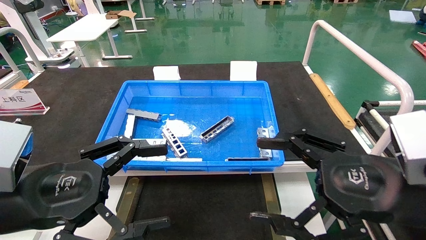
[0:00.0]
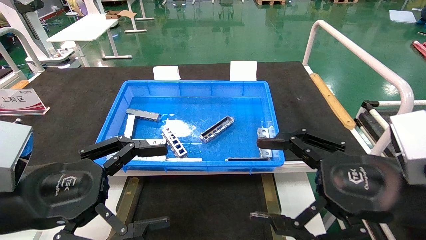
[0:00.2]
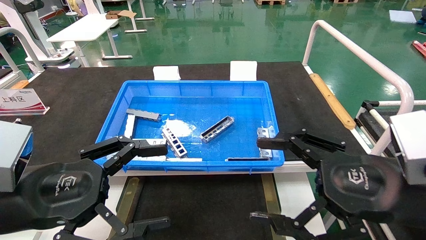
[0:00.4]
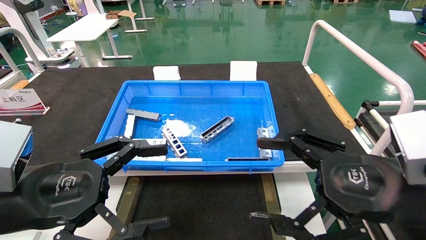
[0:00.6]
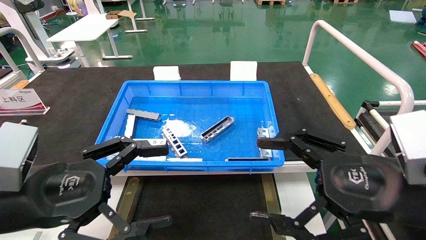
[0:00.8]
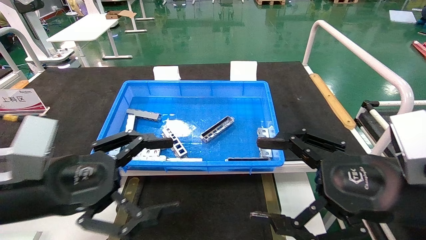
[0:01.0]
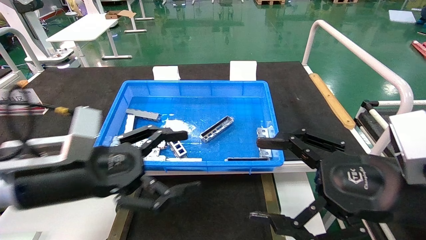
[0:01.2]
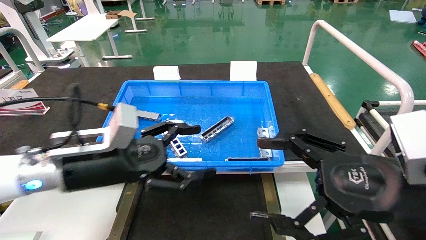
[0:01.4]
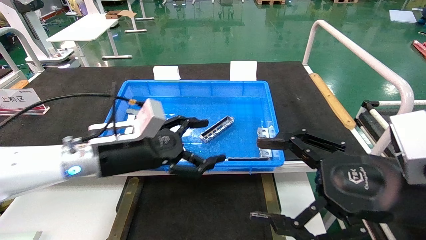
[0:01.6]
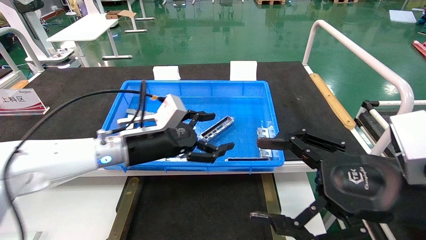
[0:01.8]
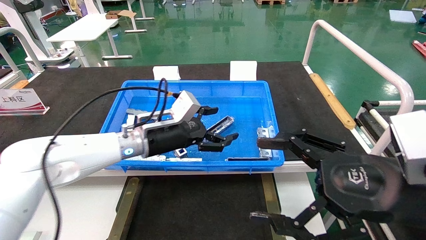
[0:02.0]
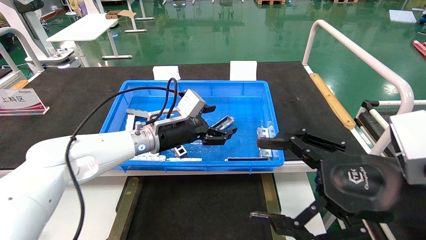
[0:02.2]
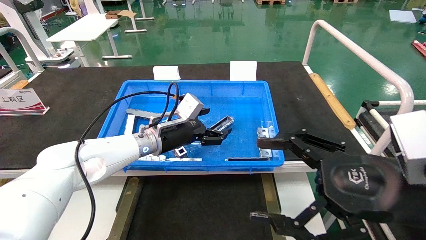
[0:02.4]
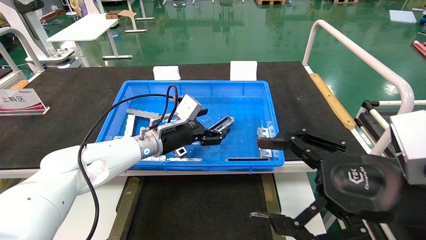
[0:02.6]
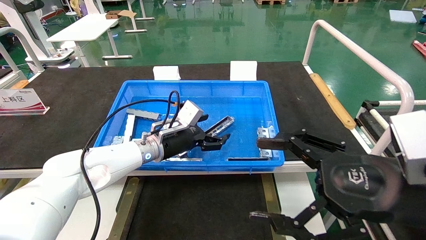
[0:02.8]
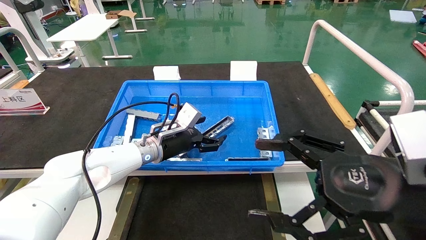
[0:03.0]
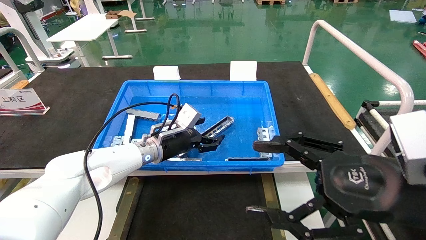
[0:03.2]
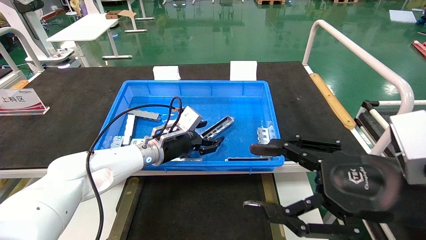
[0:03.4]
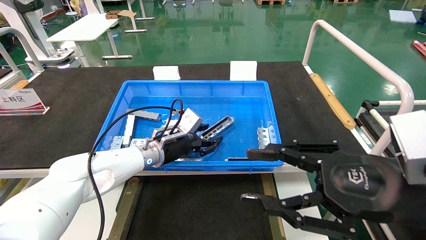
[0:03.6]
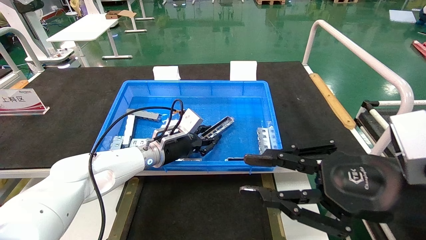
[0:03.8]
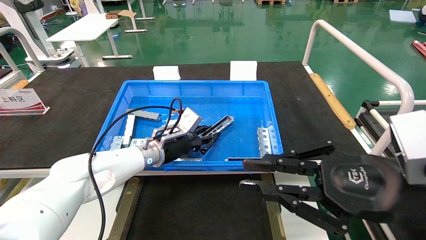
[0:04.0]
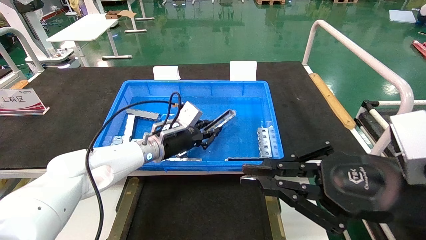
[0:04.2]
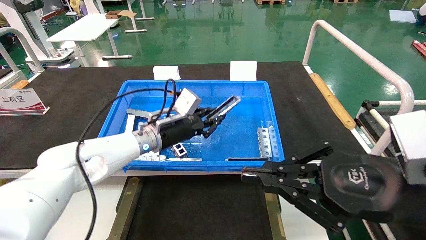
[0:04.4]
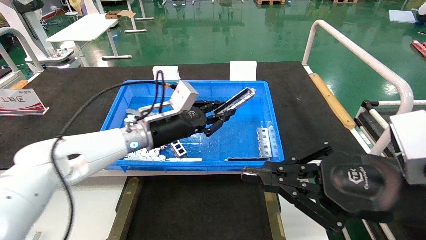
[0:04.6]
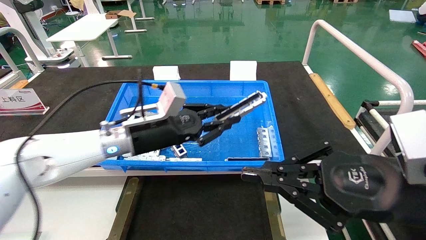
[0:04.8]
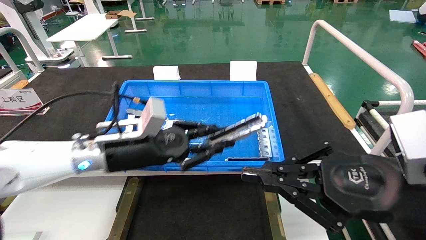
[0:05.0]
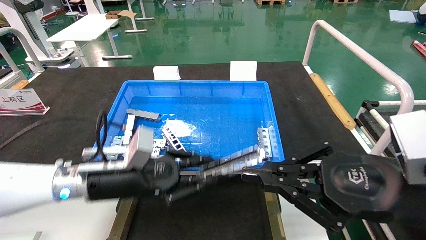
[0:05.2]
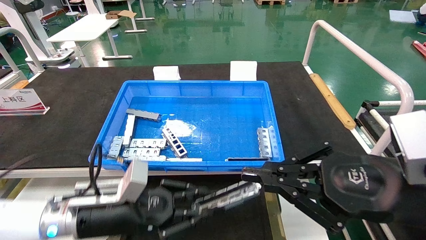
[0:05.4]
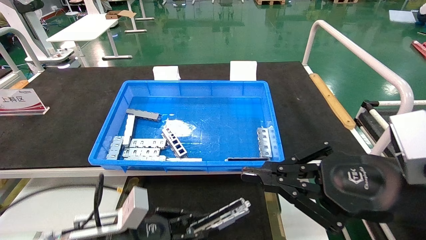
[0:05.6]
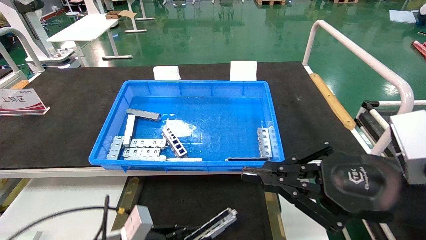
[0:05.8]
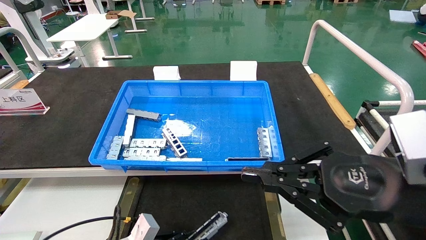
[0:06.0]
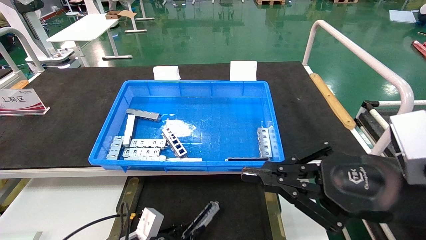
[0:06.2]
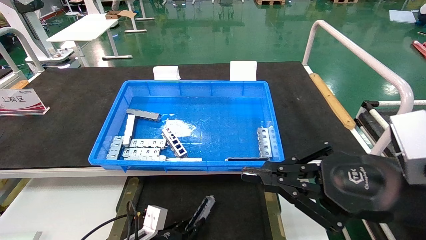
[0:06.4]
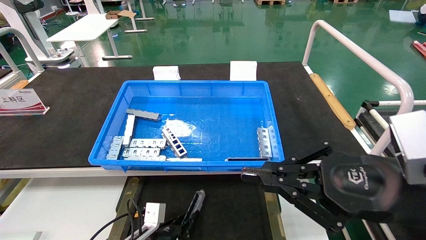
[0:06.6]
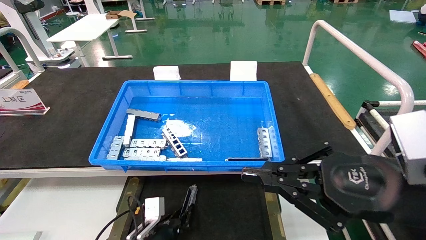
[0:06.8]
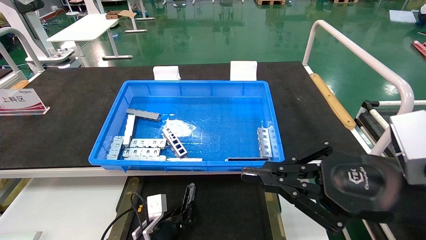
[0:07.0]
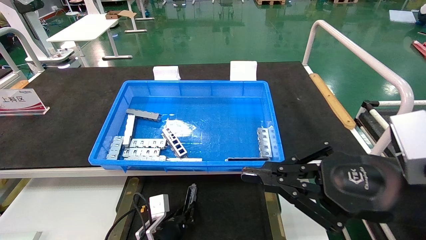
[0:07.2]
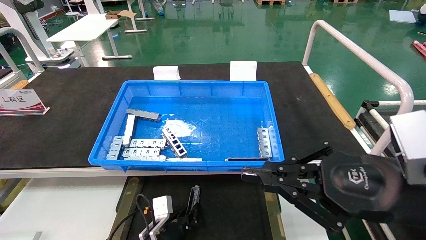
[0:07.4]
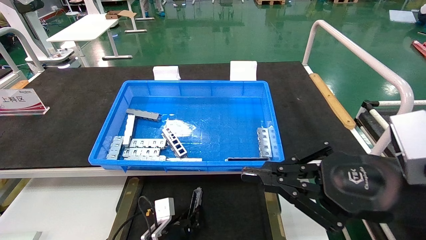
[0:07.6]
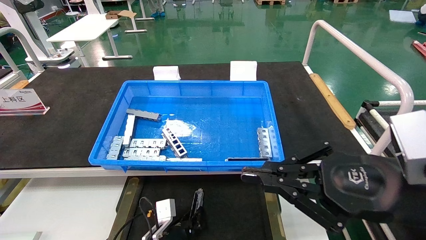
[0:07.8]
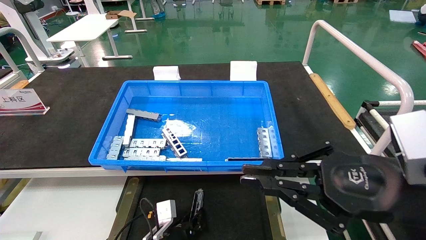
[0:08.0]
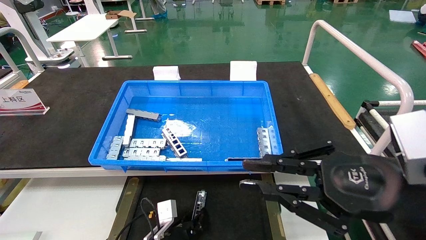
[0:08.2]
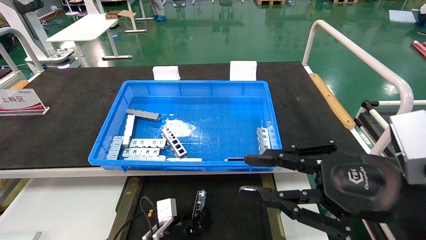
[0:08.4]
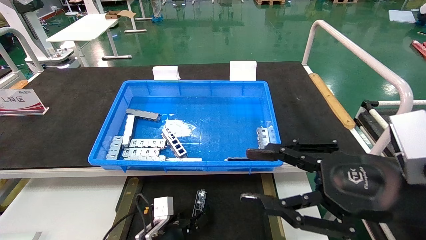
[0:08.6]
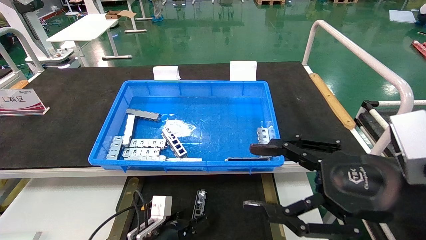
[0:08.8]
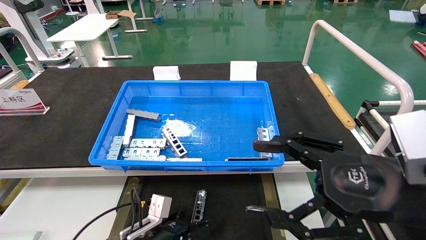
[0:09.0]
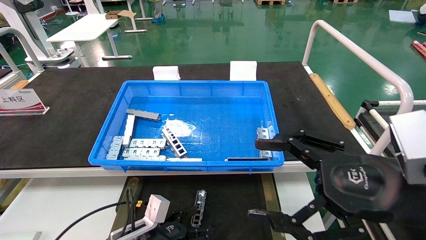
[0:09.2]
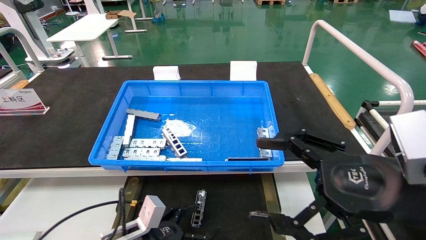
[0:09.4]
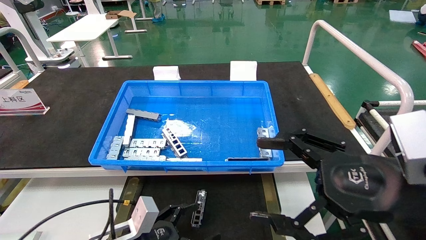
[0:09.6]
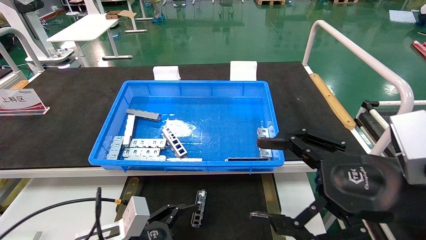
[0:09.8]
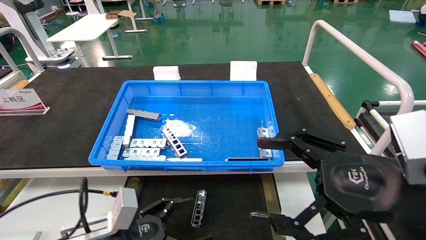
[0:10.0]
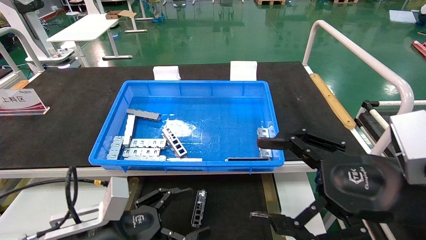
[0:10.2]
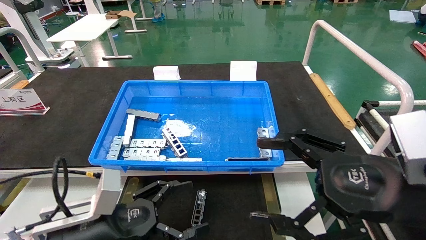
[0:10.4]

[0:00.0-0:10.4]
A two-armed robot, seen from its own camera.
Task of the whole recording: Grasp the part with one hand and place it on the black container.
Step, 0:01.2 to 0:04.4: Pick up the front USB bracket from the feeding area.
Step, 0:04.6 to 0:08.4: Place the front USB bracket into the box.
0:00.0 to 0:01.4: The left gripper moves forward and to the right, about 10 cm.
0:01.4 to 0:03.0: The left gripper shifts some 20 cm forward and to the right.
0:03.0 to 0:04.4: The left gripper closes. The right gripper closes its fingers.
0:04.4 to 0:06.0: The left gripper is displaced downward and backward by roughly 30 cm.
0:06.0 to 0:07.4: The left gripper goes roughly 15 cm forward, to the right and downward.
0:07.4 to 0:09.0: The left gripper ends up approximately 5 cm from where it was, and opens, while the right gripper opens its fingers.
0:09.0 to 0:10.4: The left gripper heads upward, backward and to the left, covering approximately 15 cm.
